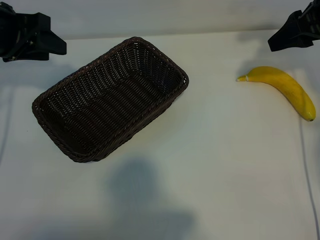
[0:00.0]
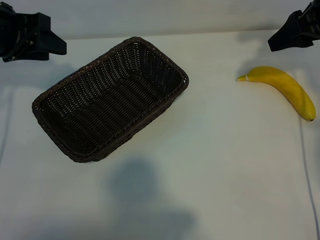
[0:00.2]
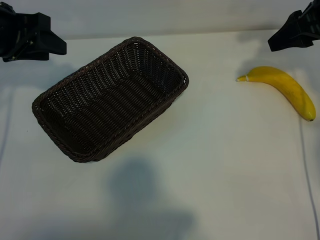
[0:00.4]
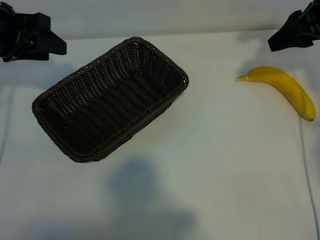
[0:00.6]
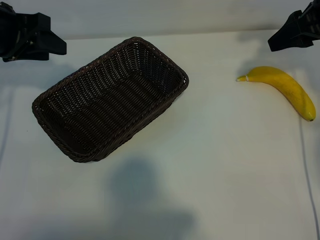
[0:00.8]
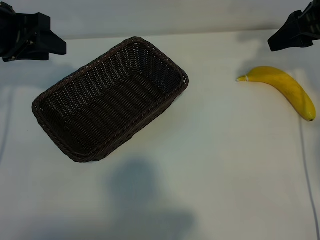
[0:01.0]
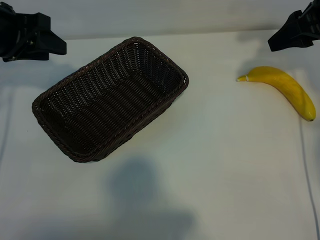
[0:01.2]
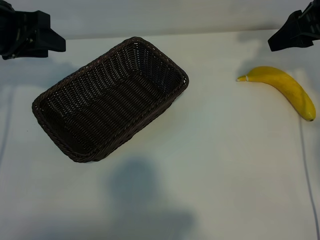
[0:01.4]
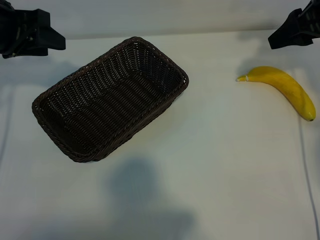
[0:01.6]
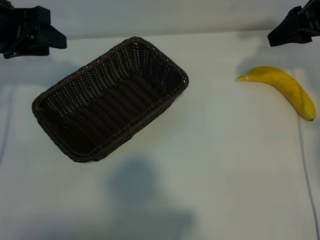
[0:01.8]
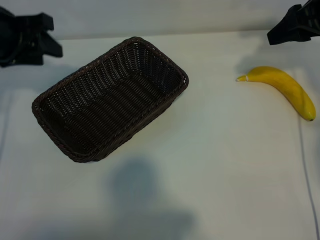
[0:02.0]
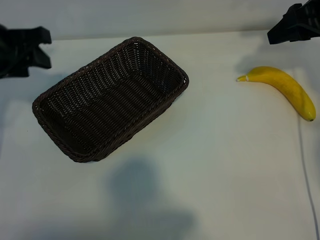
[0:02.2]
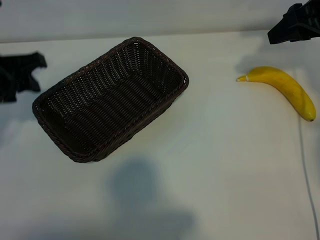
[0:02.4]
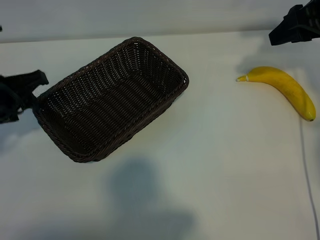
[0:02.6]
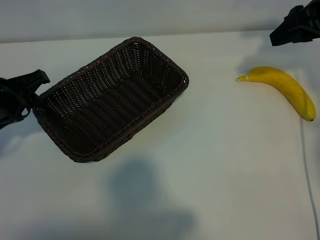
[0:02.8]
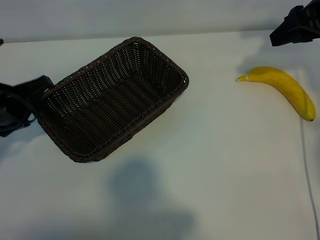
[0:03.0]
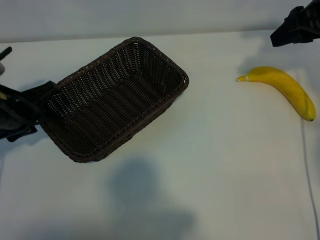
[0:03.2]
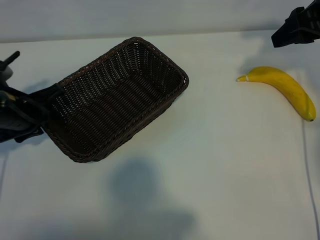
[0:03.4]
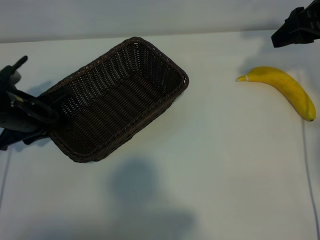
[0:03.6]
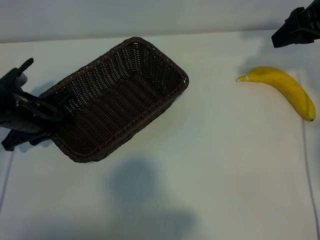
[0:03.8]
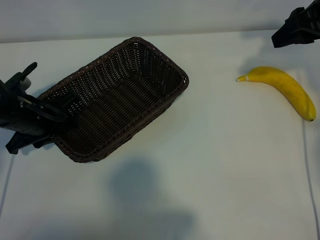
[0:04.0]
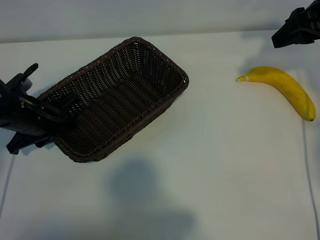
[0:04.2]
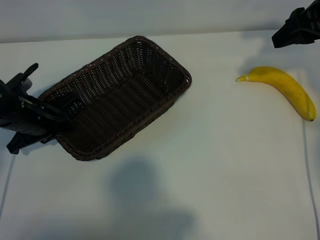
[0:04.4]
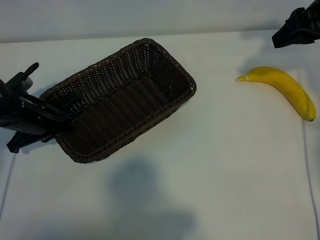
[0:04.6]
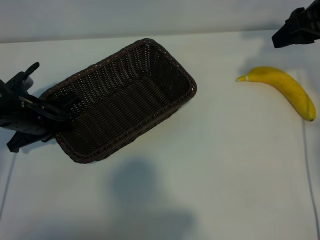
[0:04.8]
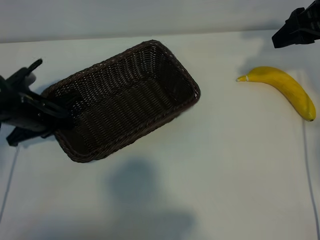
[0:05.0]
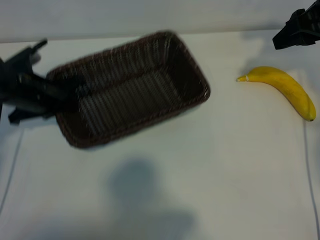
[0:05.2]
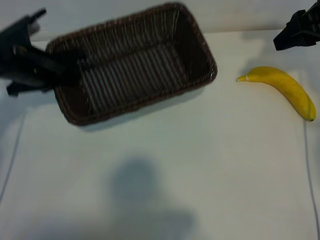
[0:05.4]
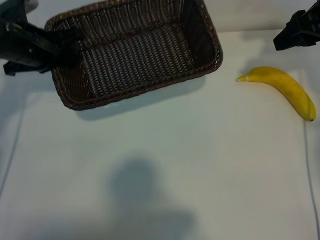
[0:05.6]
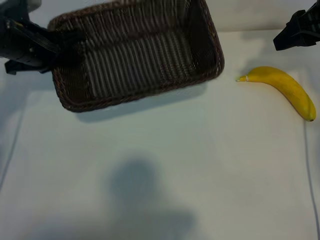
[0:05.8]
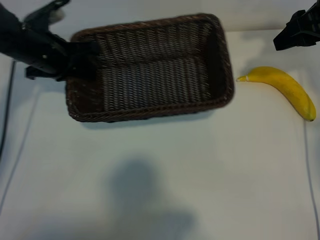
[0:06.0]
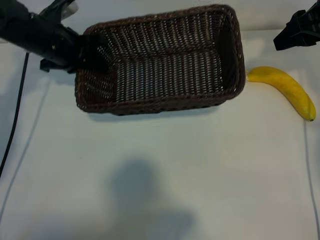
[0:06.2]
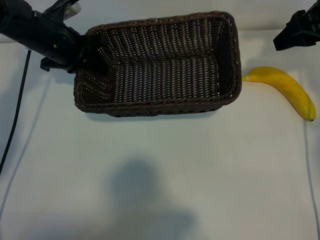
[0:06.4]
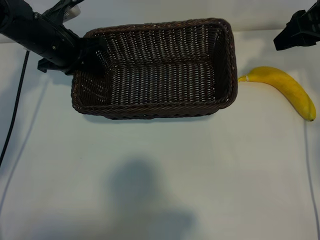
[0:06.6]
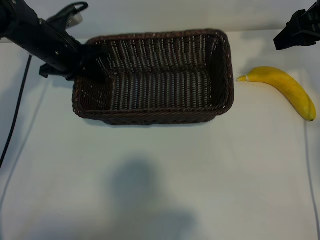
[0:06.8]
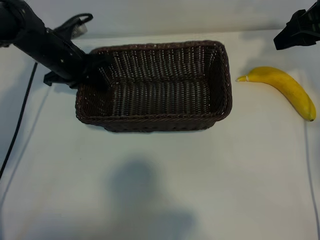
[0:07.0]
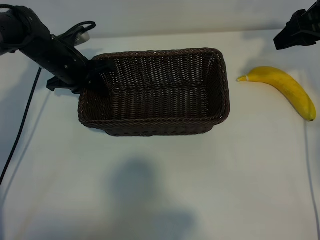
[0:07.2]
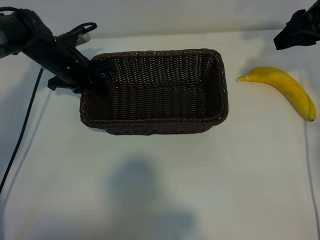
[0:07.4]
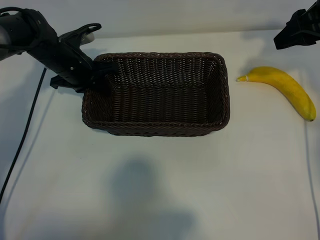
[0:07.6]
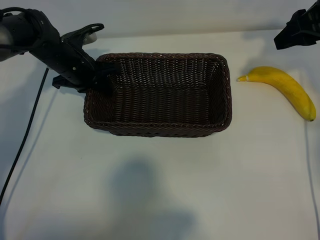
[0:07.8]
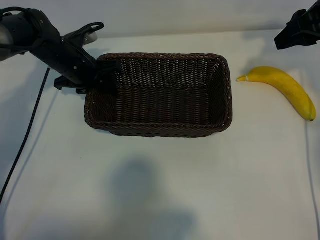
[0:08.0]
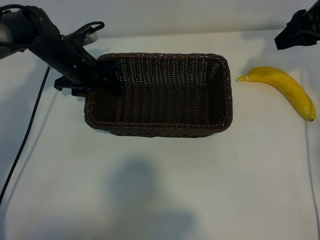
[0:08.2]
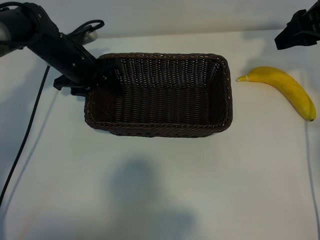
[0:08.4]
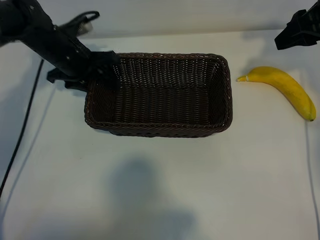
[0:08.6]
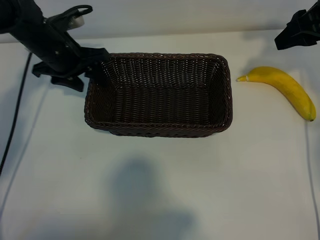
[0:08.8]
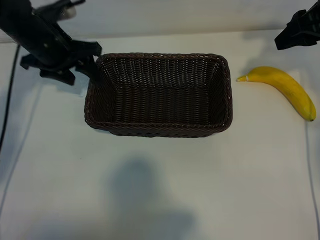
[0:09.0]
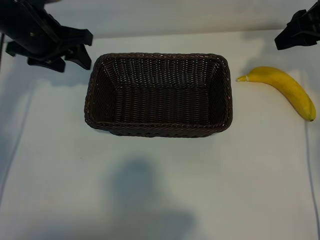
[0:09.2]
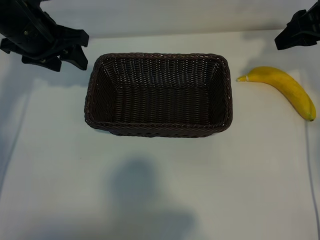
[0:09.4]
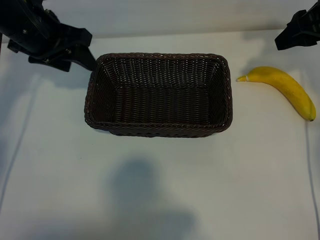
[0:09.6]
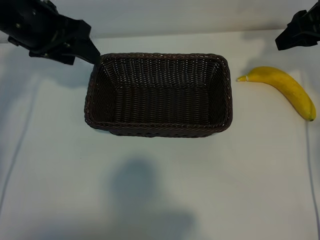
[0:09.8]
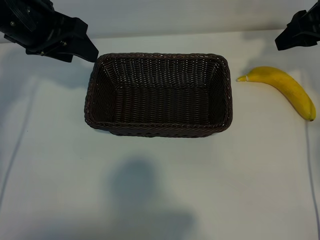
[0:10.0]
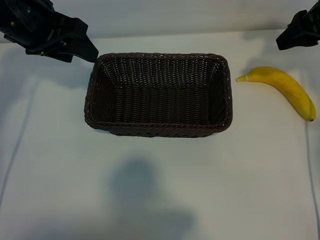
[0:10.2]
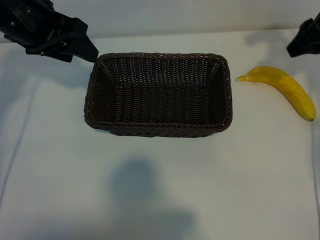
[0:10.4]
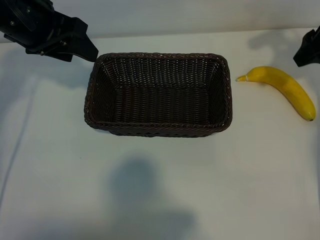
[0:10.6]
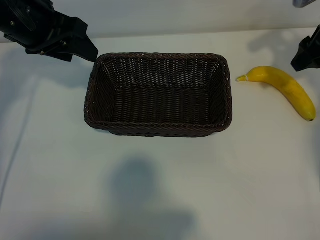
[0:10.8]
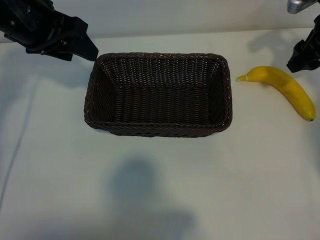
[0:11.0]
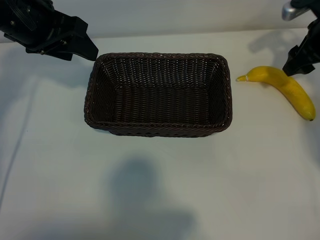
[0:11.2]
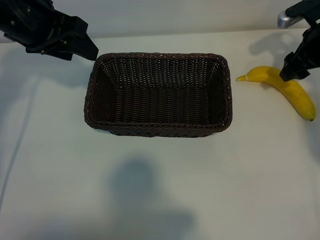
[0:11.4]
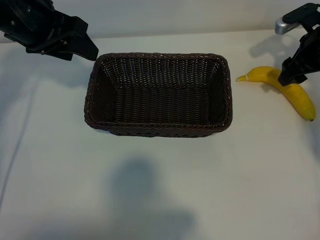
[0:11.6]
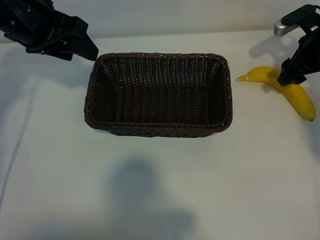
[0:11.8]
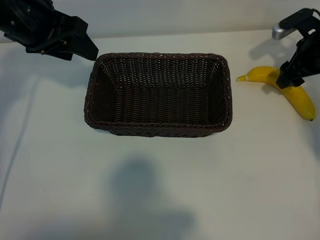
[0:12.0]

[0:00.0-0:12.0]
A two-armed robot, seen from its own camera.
Task of the whole recording: pick up the banana and put it into the basket.
Step, 0:01.4 to 0:04.4: Grasp the basket with the left gripper.
Step, 0:04.6 to 0:08.4: Place the basket in the center of the table with the left gripper.

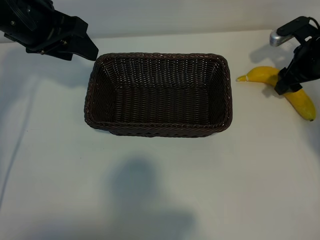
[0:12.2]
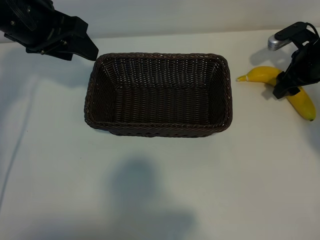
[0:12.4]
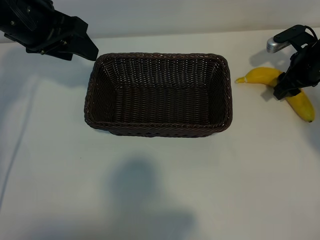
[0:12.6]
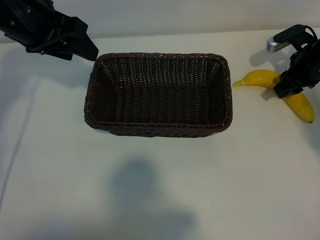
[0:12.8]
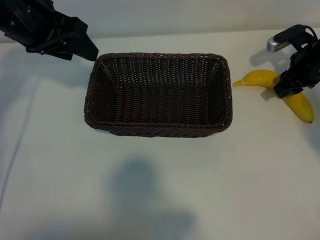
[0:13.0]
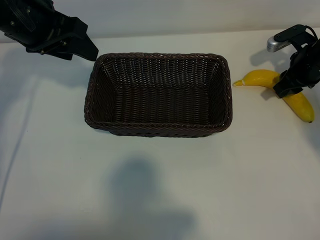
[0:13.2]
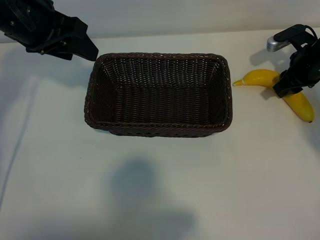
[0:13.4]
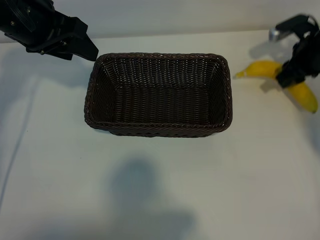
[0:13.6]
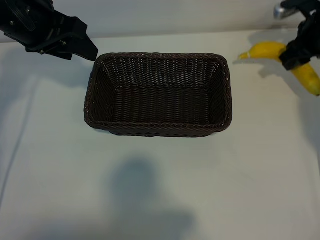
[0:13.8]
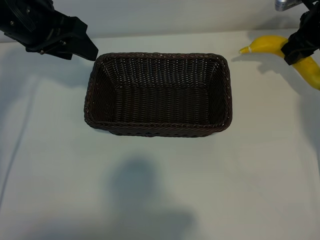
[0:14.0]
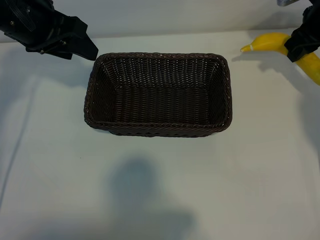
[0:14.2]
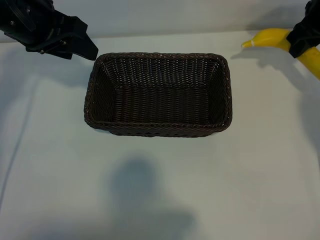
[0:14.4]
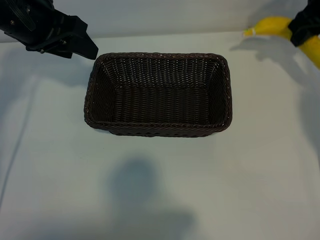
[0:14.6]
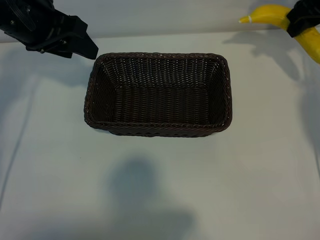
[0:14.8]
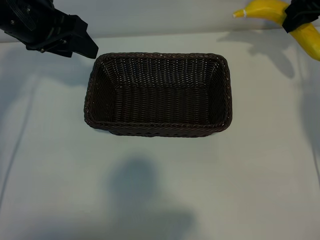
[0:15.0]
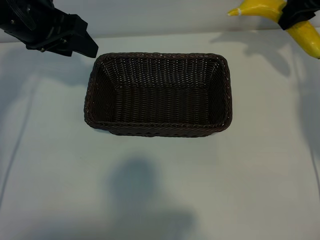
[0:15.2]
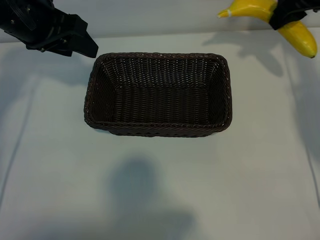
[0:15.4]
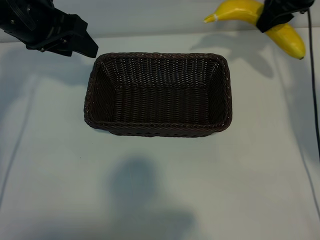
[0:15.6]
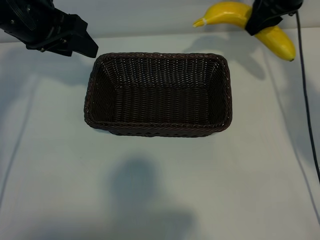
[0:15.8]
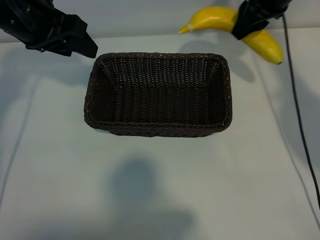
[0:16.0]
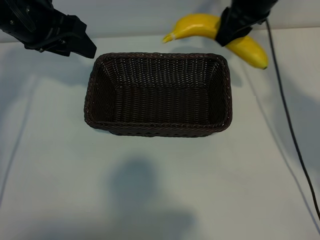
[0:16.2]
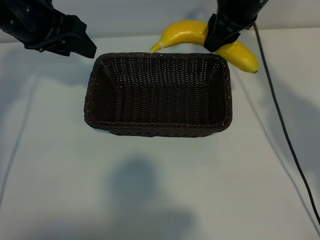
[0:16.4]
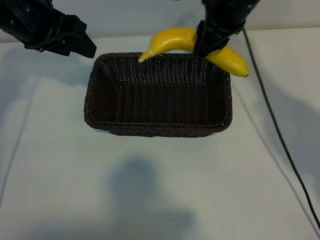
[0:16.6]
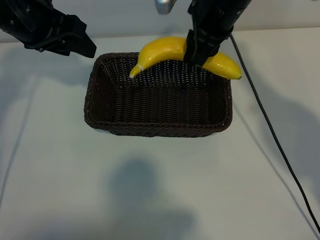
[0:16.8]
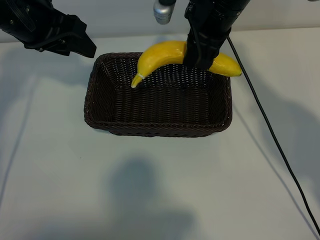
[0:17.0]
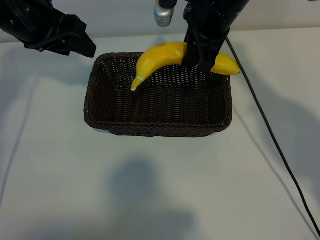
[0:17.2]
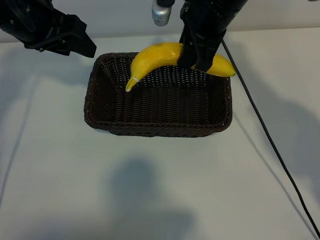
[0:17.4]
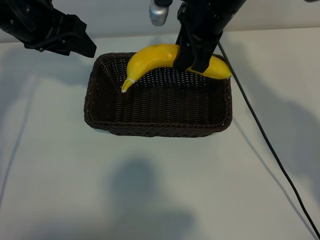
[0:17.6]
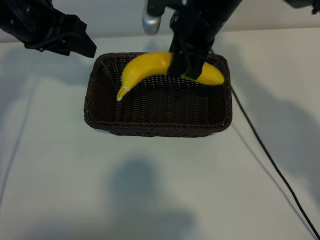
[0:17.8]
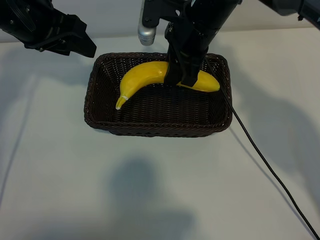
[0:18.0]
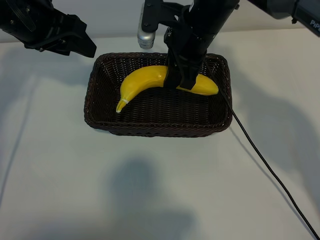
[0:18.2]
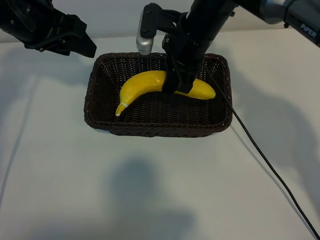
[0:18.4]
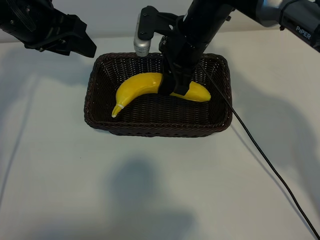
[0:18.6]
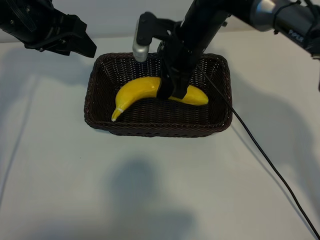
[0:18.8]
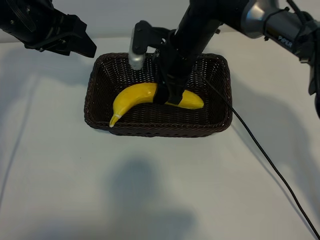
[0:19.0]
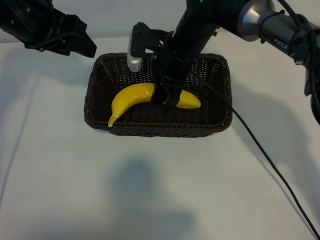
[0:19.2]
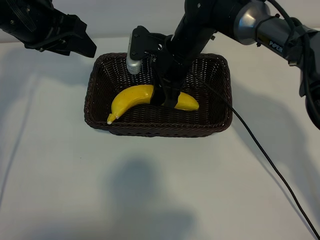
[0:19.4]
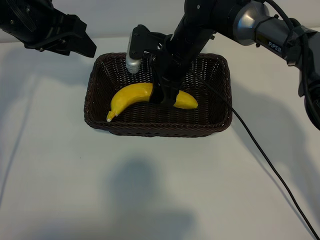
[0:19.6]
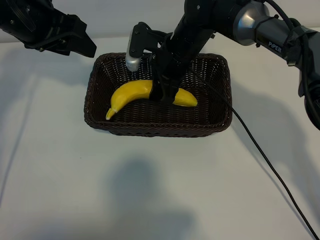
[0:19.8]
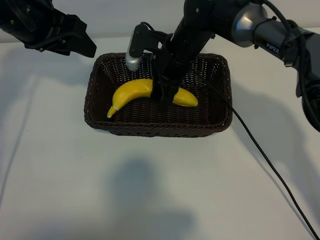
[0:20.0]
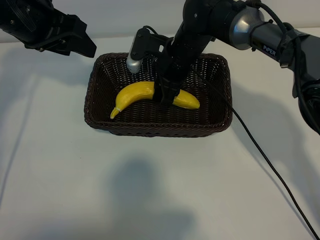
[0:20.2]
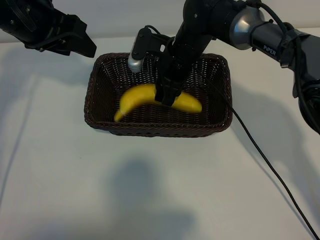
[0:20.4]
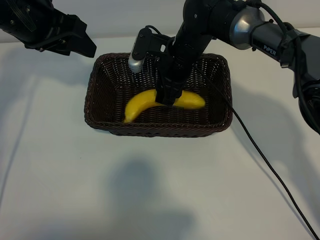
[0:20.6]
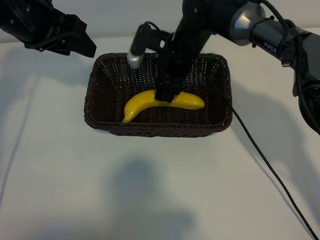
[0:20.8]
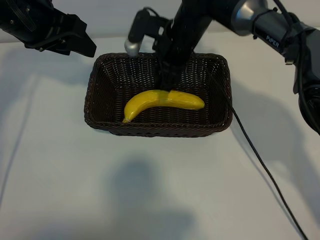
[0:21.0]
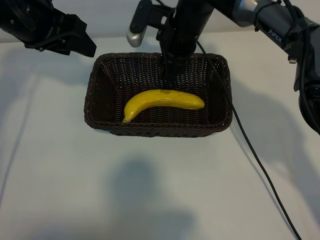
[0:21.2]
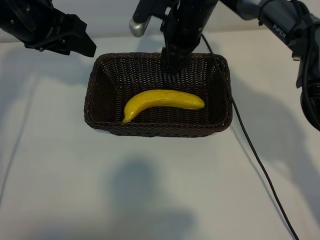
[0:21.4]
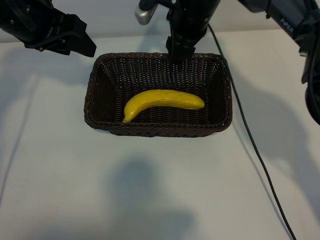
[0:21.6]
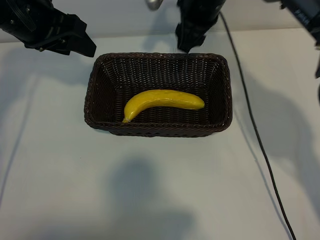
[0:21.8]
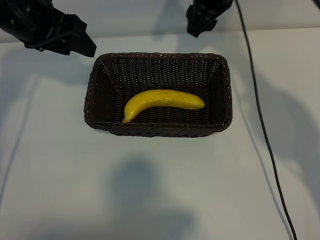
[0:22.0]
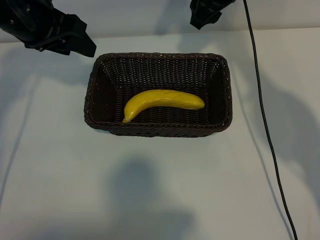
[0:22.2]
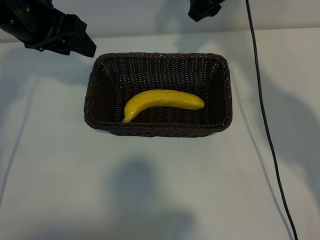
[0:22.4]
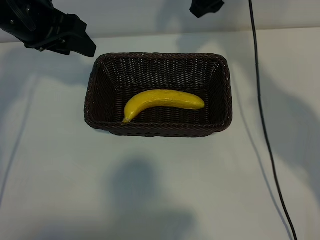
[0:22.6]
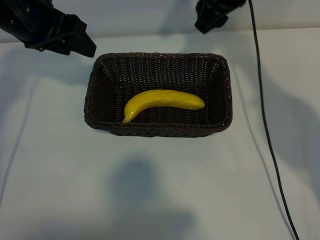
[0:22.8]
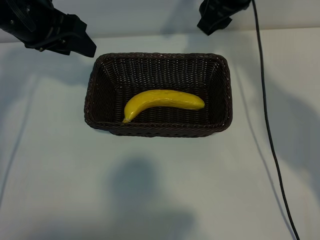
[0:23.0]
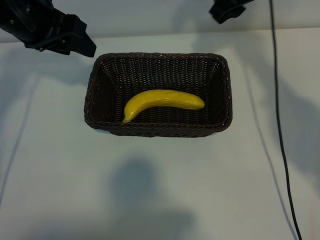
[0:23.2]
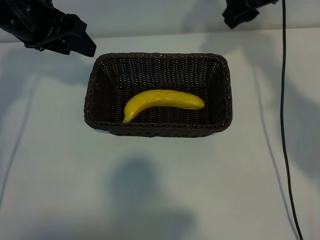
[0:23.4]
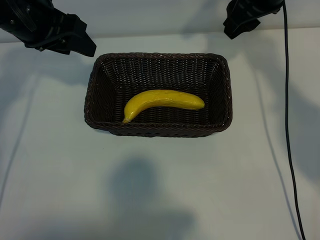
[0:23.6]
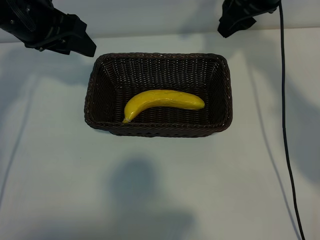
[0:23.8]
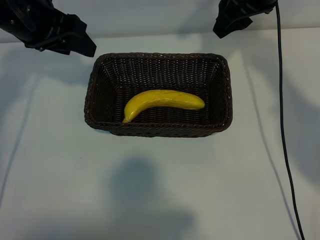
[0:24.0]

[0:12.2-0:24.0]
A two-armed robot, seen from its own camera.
Task of the whole recording: pick up the banana and put it into the basket.
Step, 0:13.4 to 0:20.8: Place the banana in the basket with right gripper.
